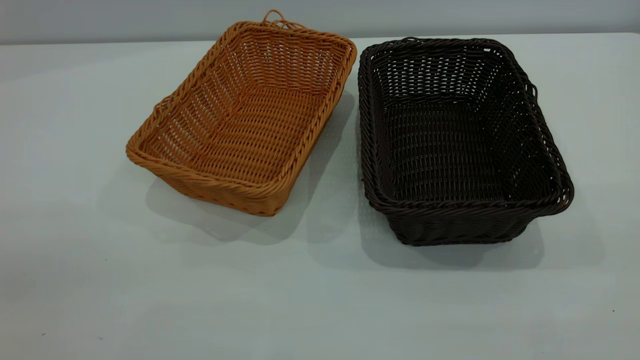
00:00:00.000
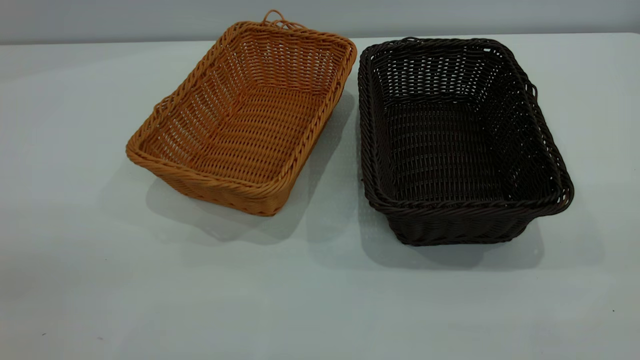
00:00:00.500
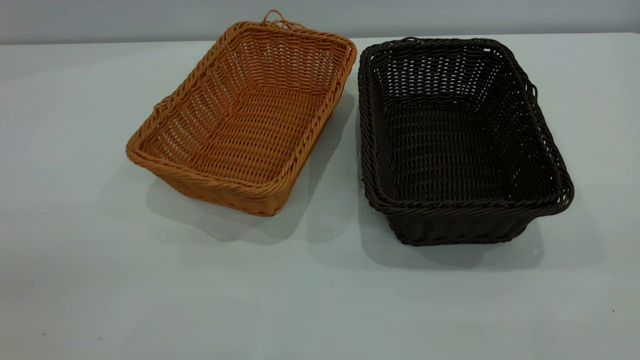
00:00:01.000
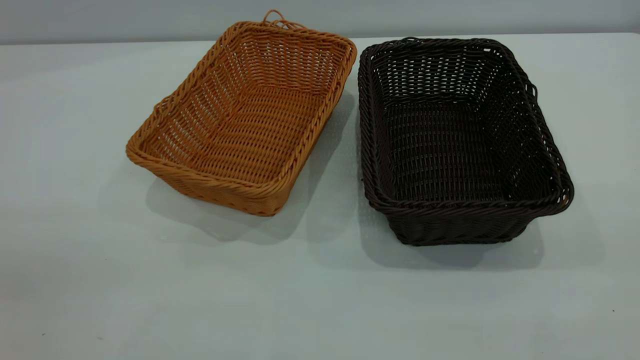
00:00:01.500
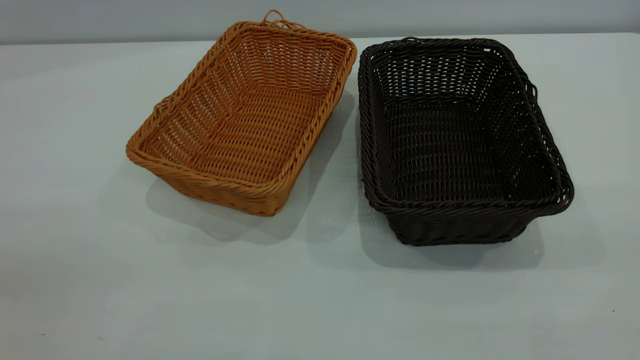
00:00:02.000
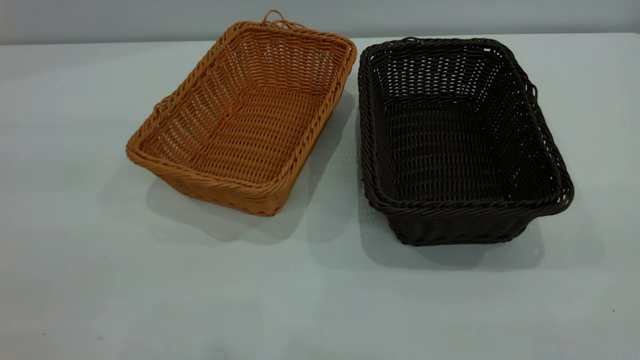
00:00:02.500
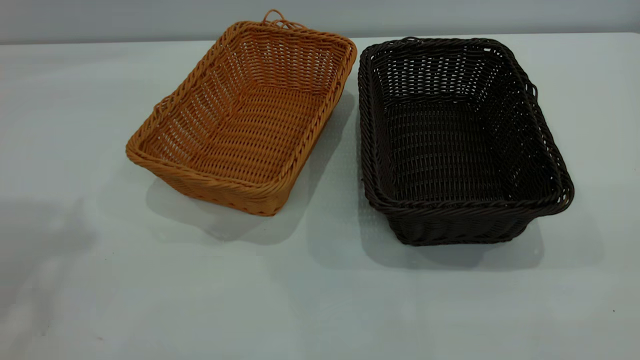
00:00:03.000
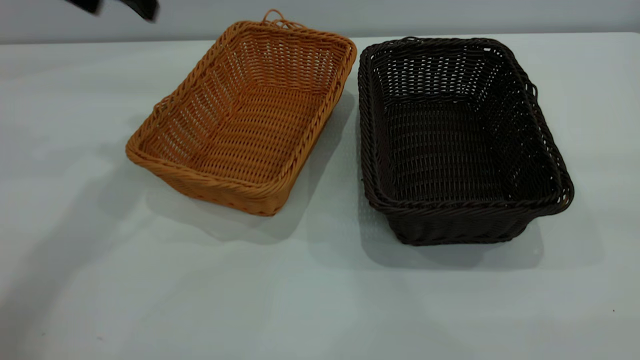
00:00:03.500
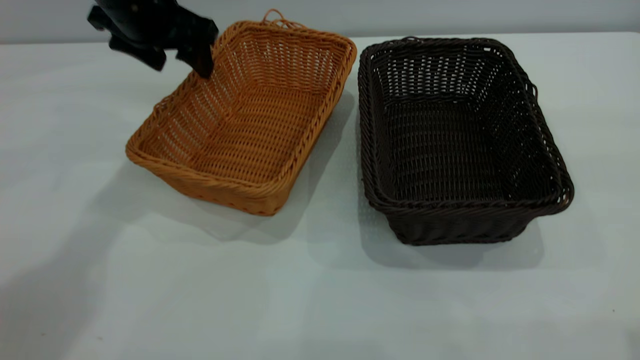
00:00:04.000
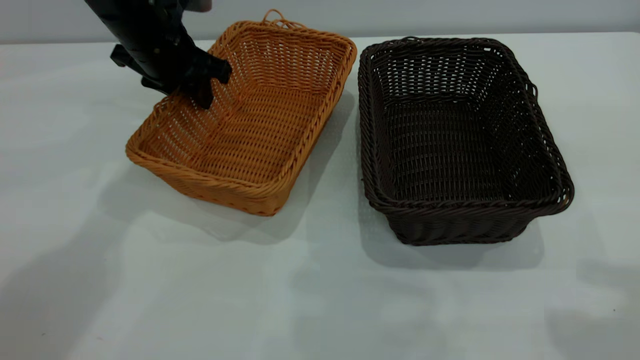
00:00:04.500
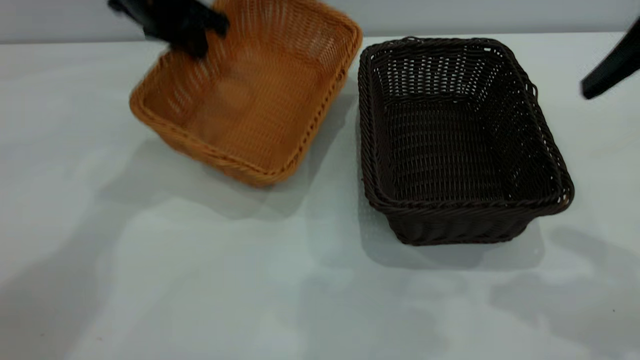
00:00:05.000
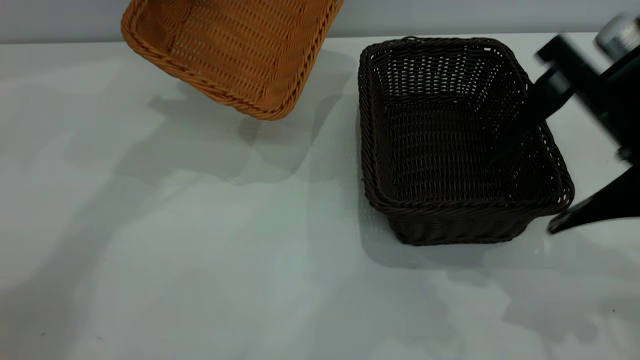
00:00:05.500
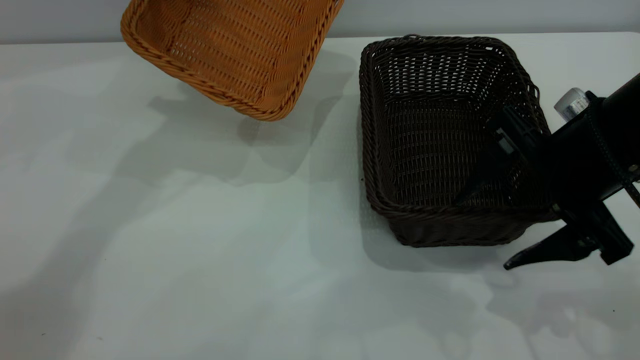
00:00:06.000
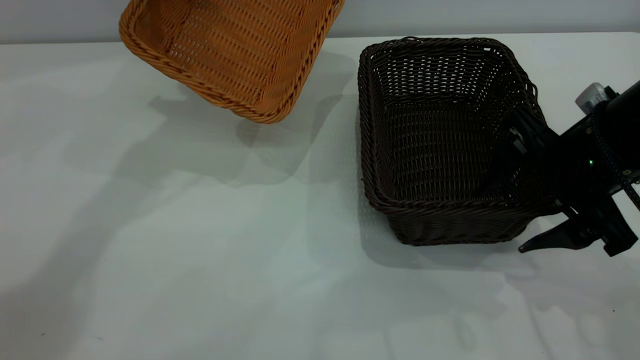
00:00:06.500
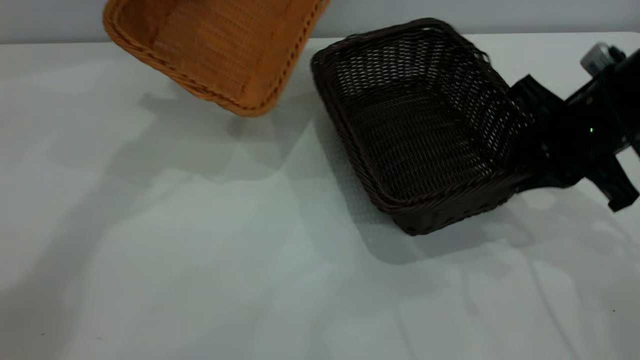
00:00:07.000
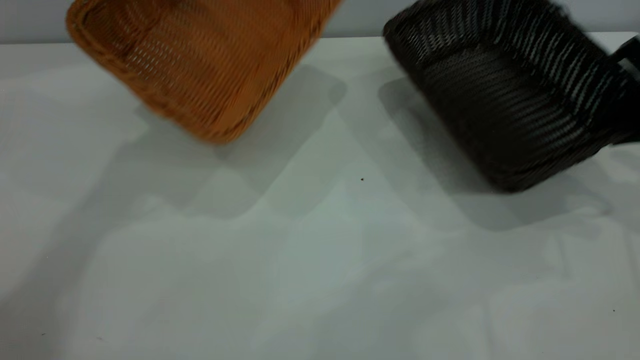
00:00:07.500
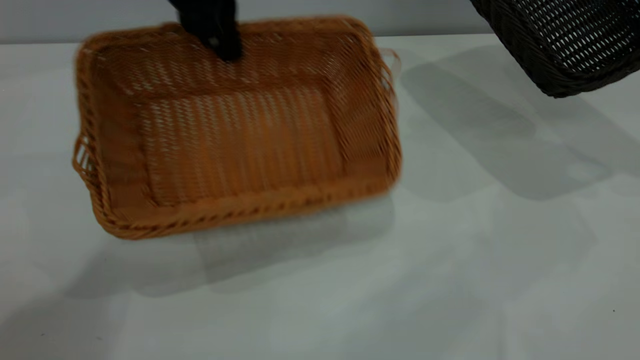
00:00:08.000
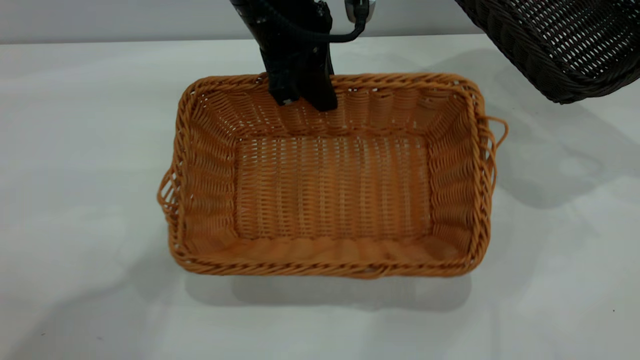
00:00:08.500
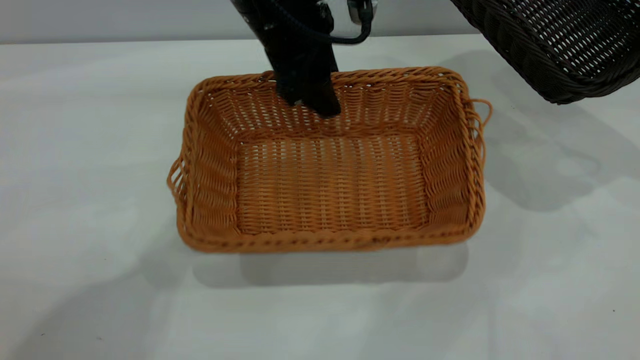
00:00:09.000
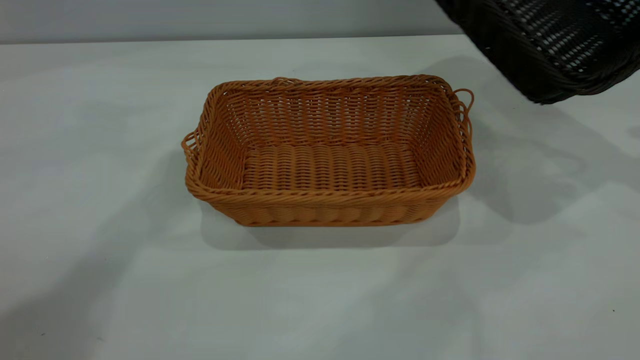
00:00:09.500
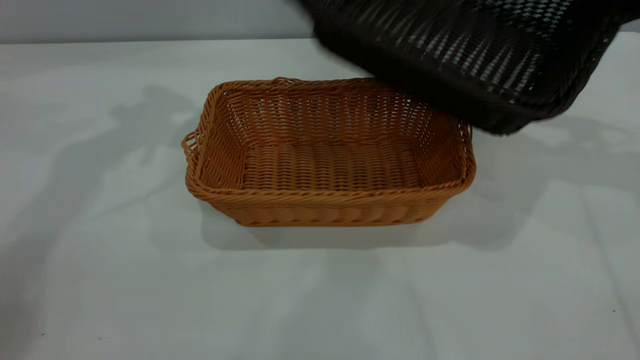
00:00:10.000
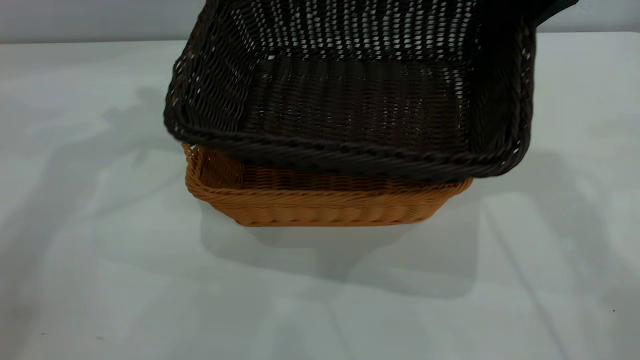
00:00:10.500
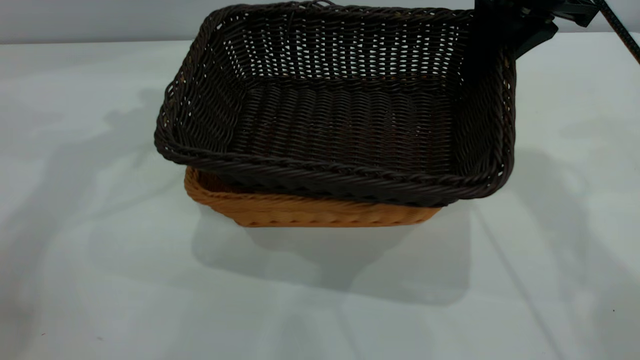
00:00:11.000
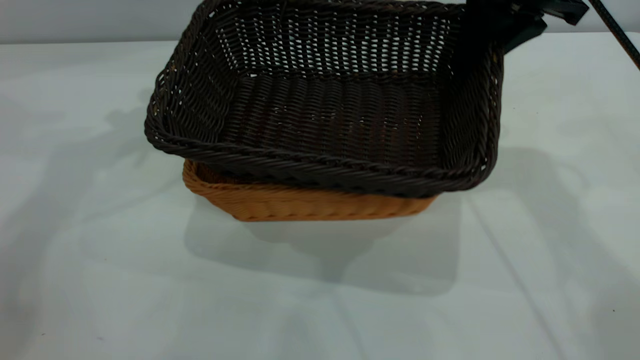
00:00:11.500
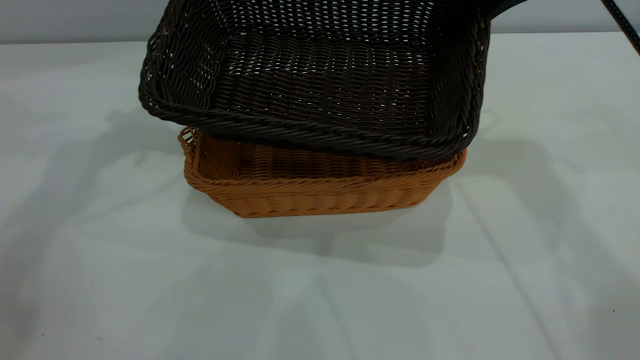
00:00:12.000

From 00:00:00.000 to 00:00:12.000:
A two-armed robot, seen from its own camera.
Task of the whole recording: the left gripper grasp the brown basket and place it in the center of the table, the right gripper grasp the black basket and place it inside the brown one.
Step, from 00:00:00.000 to 00:00:07.500: Pick up the light basket with the right gripper.
Step, from 00:00:08.000 to 00:00:09.000: Place the light-colored basket in the center.
From 00:00:00.000 to 00:00:02.000: The two grippers keep their place.
From 00:00:02.000 to 00:00:04.000: The left gripper is displaced forward by about 50 cm.
From 00:00:04.000 to 00:00:06.000: The right gripper moves downward and forward, roughly 30 cm; the left gripper moves upward, approximately 10 cm, and closes.
From 00:00:06.000 to 00:00:08.000: The right gripper heads to the right, forward and upward, covering some 25 cm, and closes up. Meanwhile the left gripper shifts approximately 10 cm to the right and backward.
From 00:00:08.000 to 00:00:10.000: Both grippers move to the left, approximately 15 cm. The left gripper opens.
From 00:00:10.000 to 00:00:12.000: The right gripper heads to the left, covering approximately 10 cm.

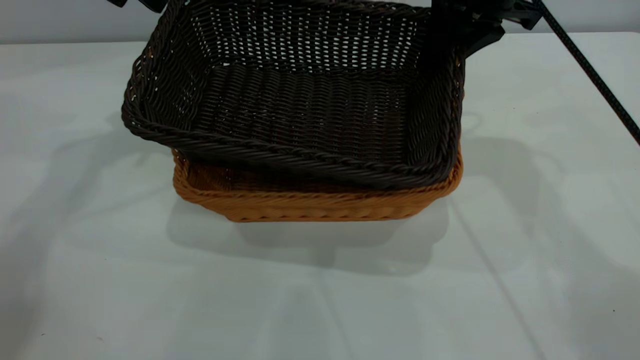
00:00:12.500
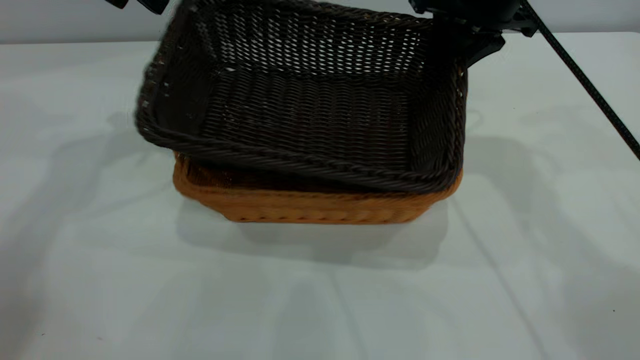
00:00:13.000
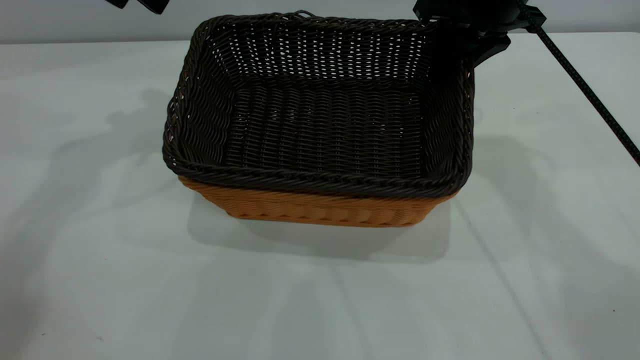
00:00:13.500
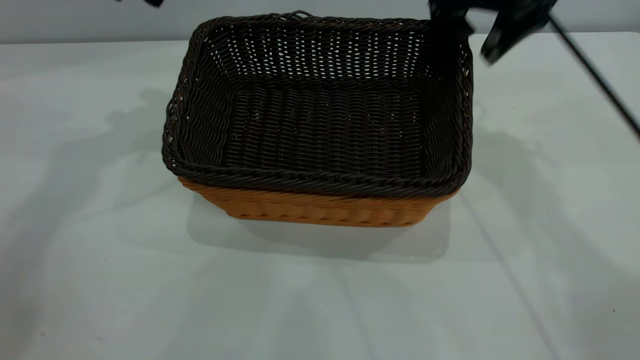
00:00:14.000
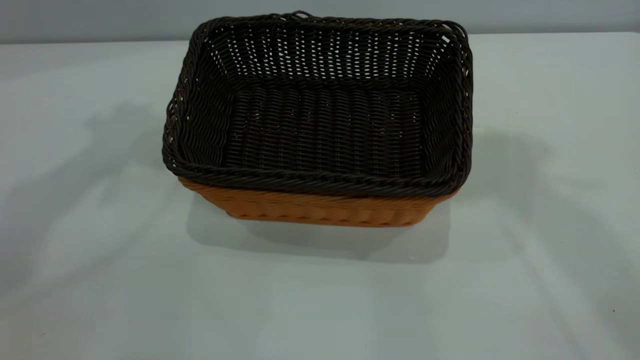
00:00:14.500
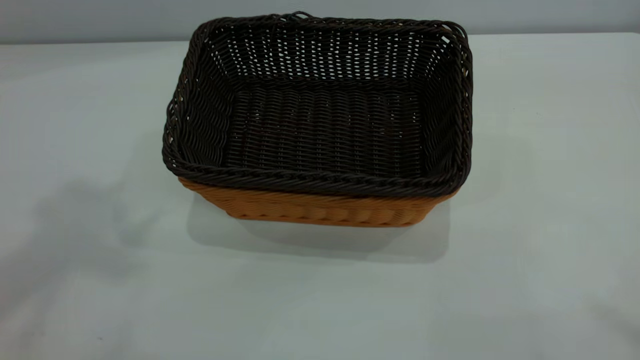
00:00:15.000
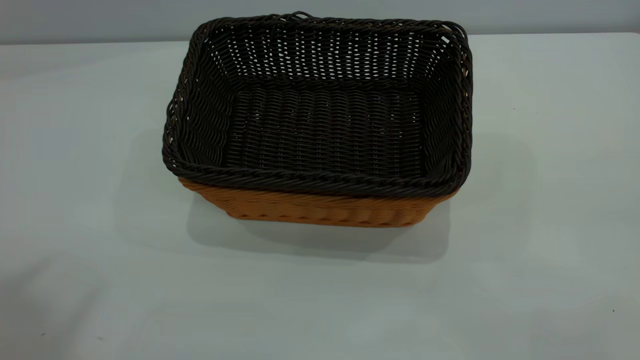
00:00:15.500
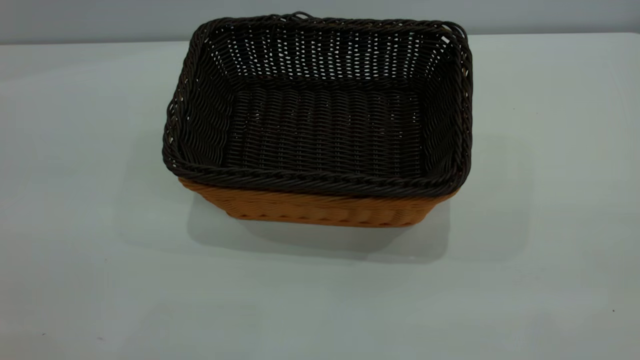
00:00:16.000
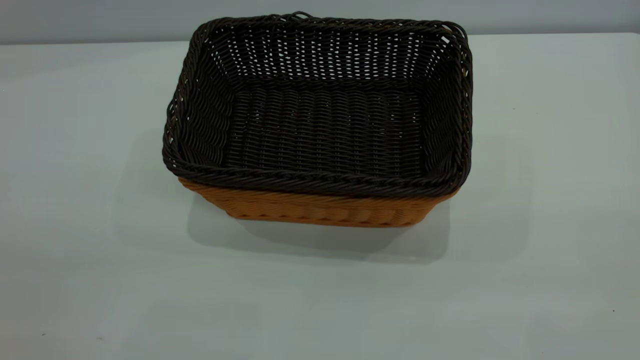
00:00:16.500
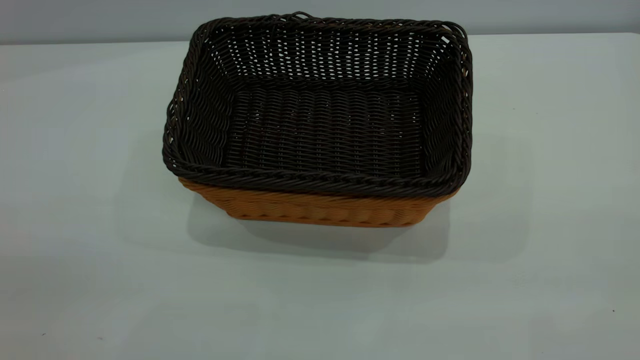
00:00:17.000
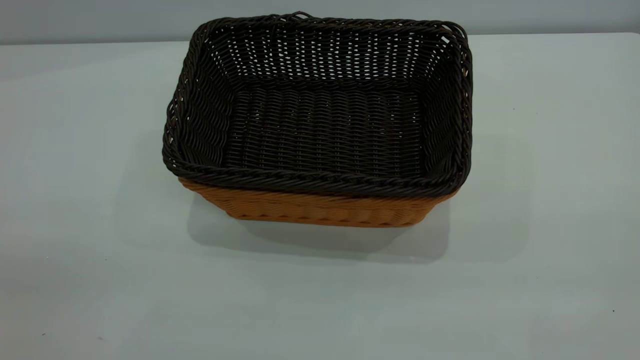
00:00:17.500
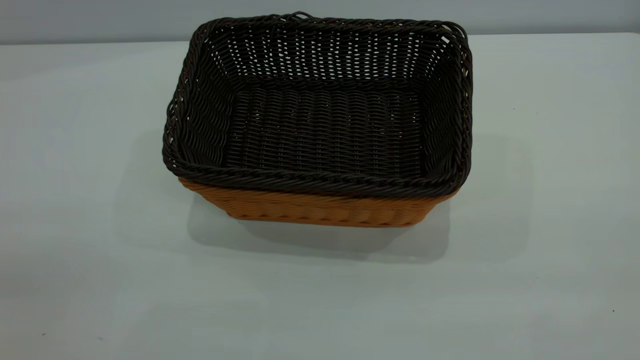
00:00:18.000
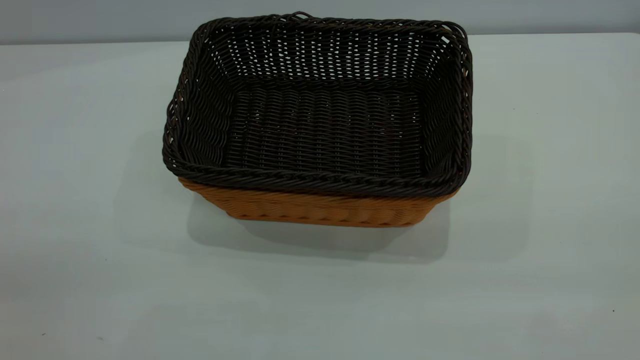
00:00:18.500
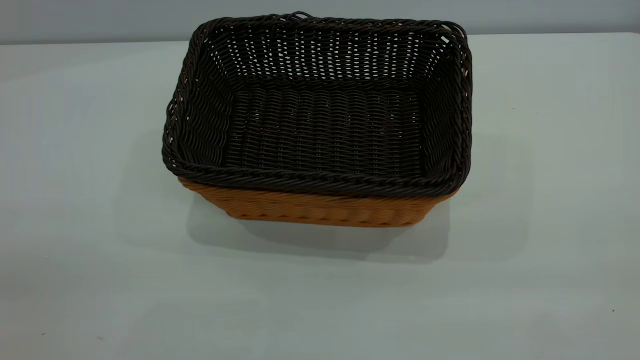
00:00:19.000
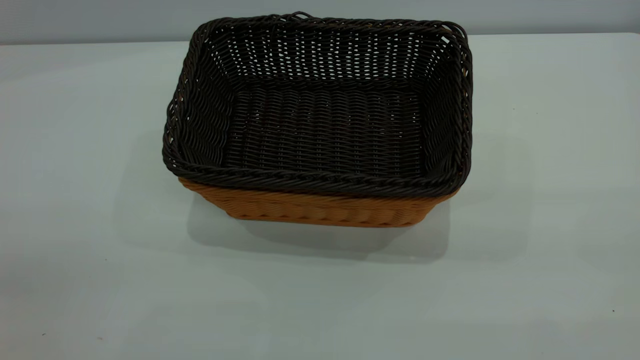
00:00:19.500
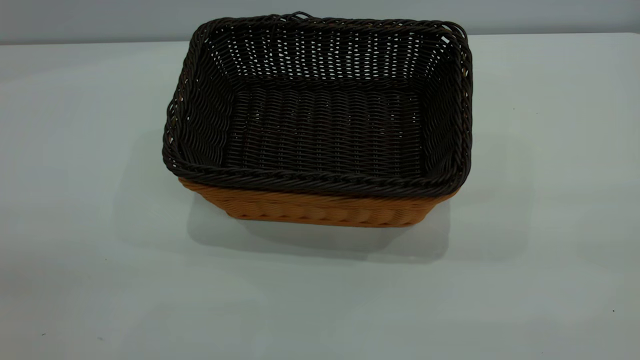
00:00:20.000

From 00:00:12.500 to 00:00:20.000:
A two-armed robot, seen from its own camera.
Task of the whole recording: the left gripper grasp the brown basket and place it in the center of the table, the right gripper grasp the black basket and place it inside the brown one.
Step, from 00:00:12.500 to 00:00:14.500: Place the dark basket on top of the light basket.
From 00:00:12.500 to 00:00:14.500: The left gripper is displaced upward by approximately 20 cm. Meanwhile the right gripper goes roughly 30 cm upward, and opens up.
